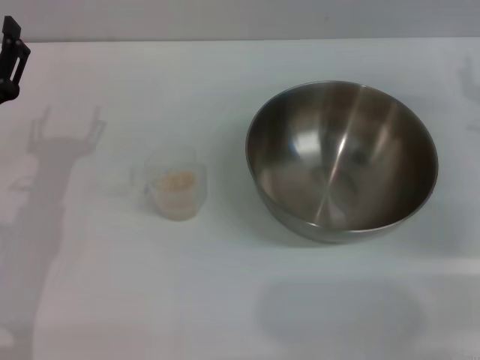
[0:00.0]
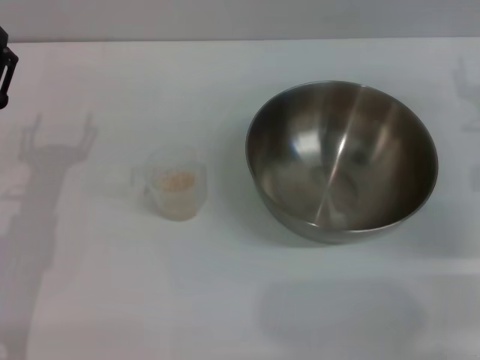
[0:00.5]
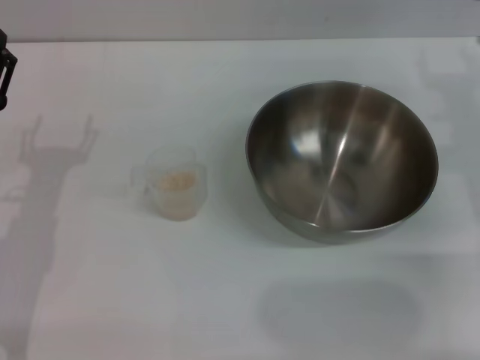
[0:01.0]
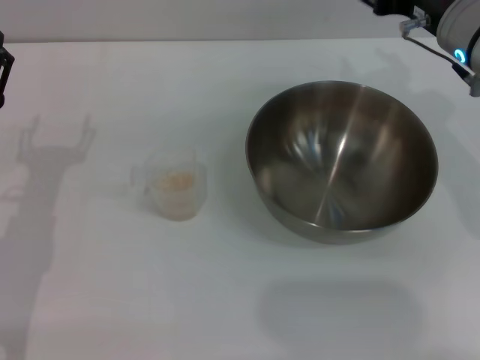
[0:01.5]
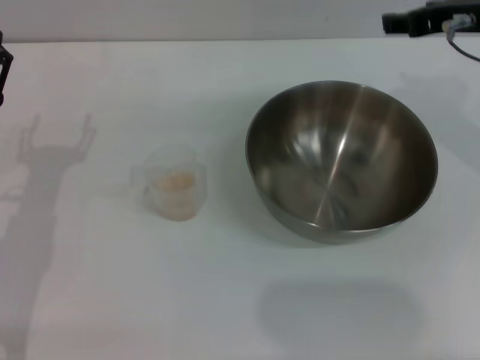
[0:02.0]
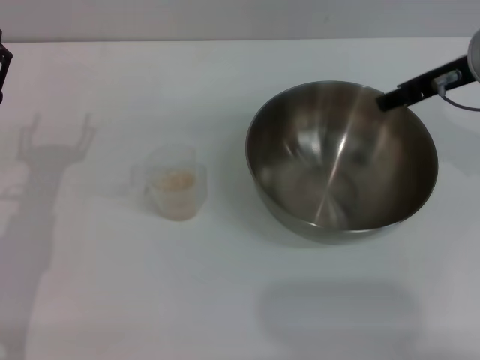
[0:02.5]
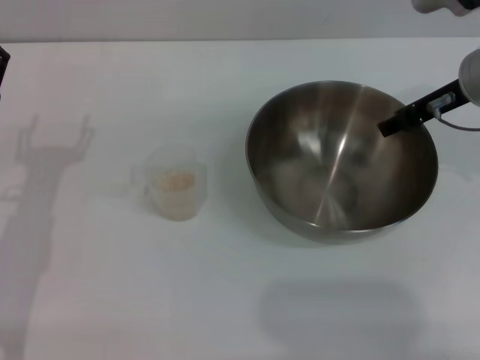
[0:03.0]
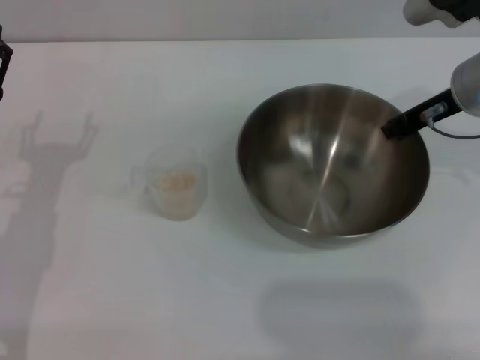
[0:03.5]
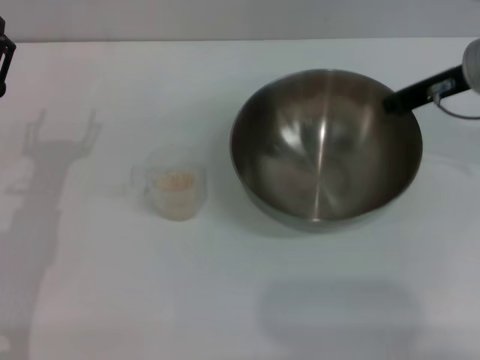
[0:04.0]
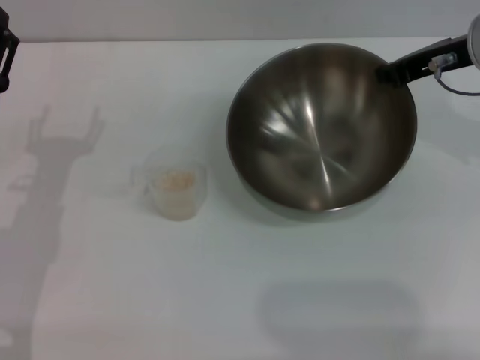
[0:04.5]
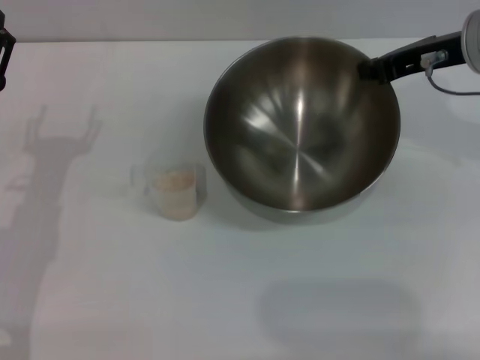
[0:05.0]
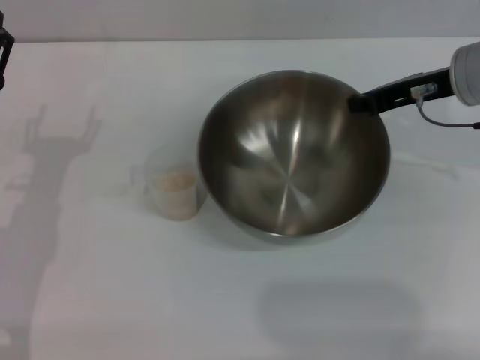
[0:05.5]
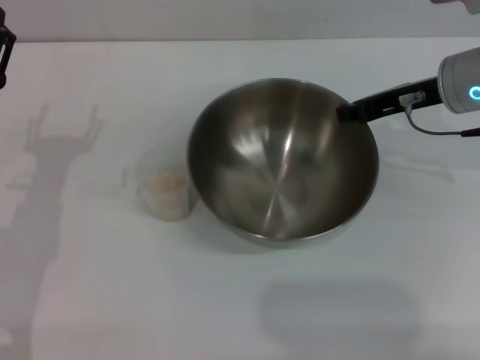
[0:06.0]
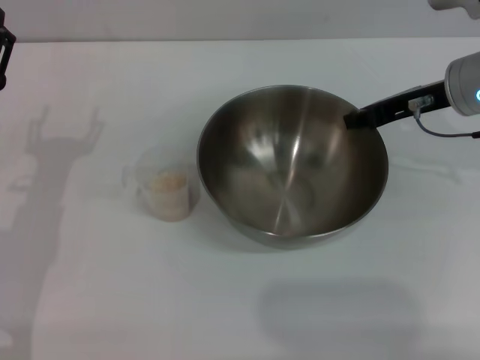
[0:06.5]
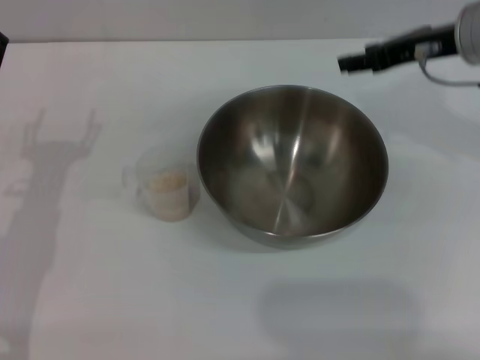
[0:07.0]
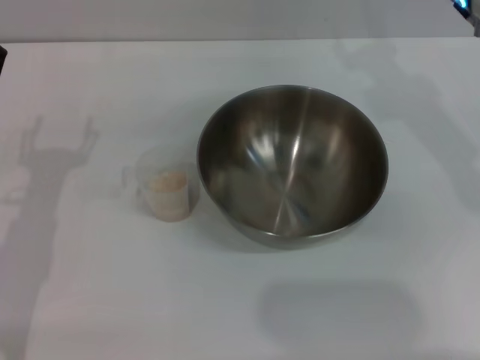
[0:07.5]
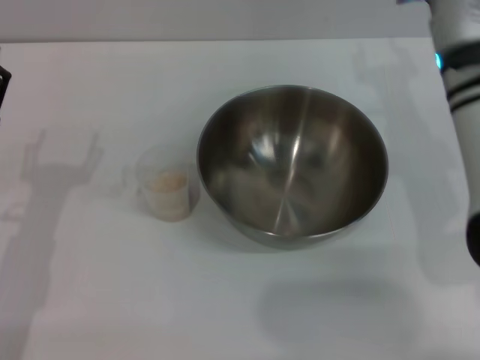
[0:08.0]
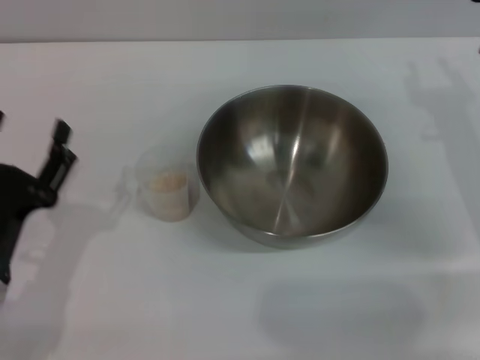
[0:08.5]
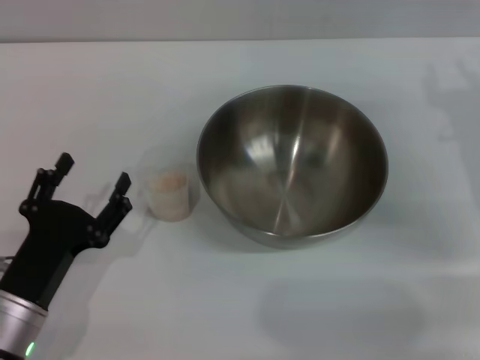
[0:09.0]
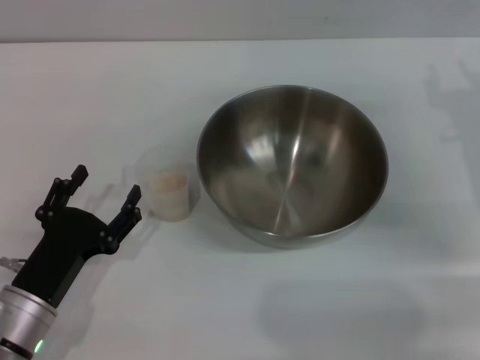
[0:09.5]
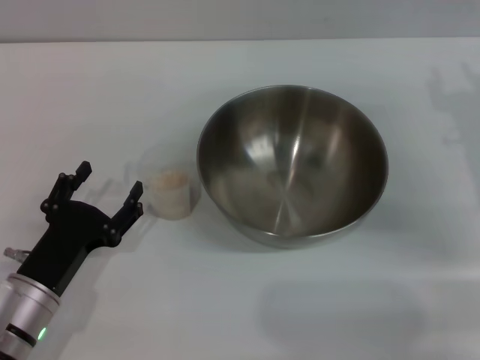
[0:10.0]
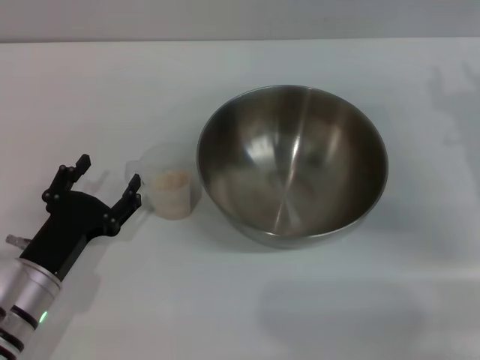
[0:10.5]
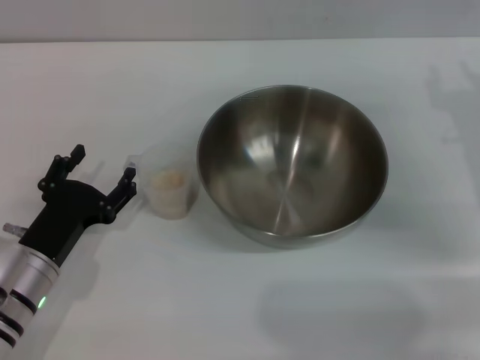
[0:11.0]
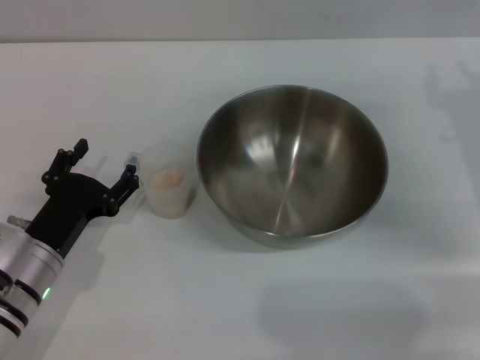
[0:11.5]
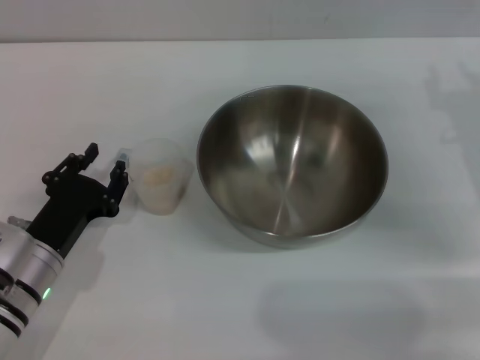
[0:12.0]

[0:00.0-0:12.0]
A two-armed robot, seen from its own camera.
Task of the whole recording: Place the bowl in the middle of the table with one hand and pour the rice from the grain cup into it with the other hand.
Step, 0:00.0 to 0:04.5: Pick up the bowl with the right gripper.
Step, 0:05.0 to 0:06.5: Place the bowl in the center of view with the right gripper.
0:00.0 to 0:02.0: The right gripper shifts some 15 cm upward and to the left.
0:02.0 to 0:04.0: The right gripper closes.
0:04.0 to 0:06.0: There are only small adjustments of the grippers.
0:06.0 to 0:08.0: The right gripper changes place by roughly 5 cm, and opens.
0:08.0 to 0:10.0: The right gripper moves to the right, roughly 10 cm, while the left gripper heads downward, covering some 5 cm.
0:10.0 to 0:12.0: There are only small adjustments of the grippers.

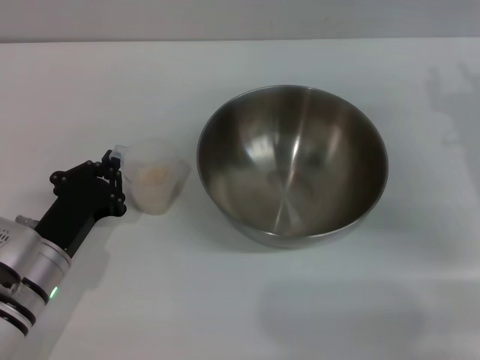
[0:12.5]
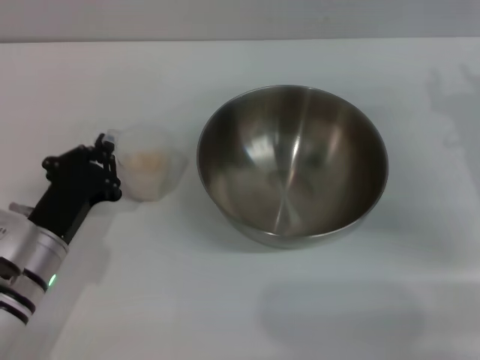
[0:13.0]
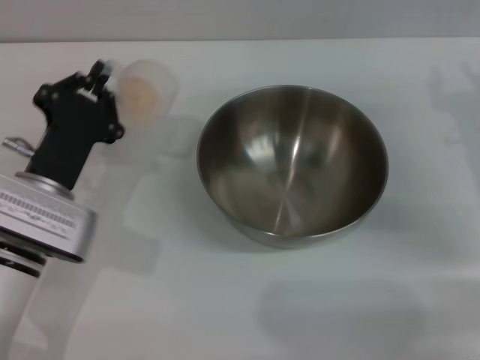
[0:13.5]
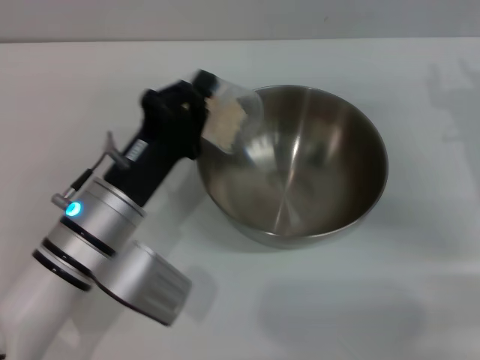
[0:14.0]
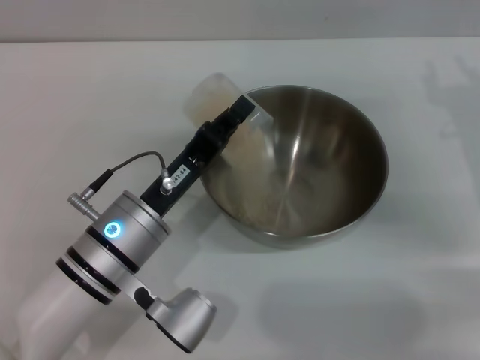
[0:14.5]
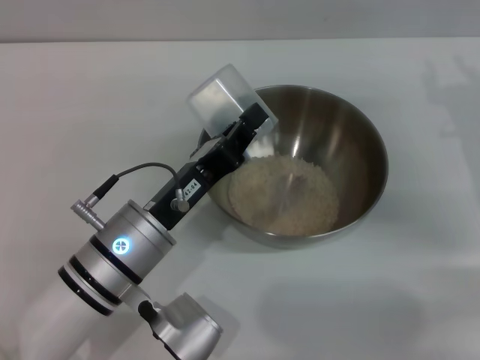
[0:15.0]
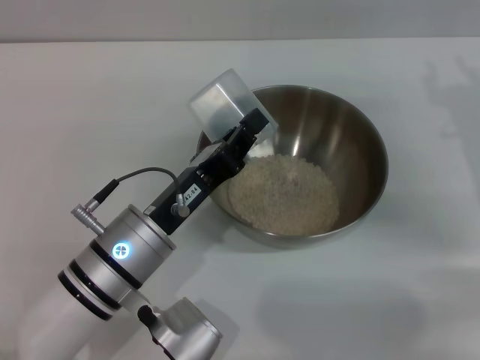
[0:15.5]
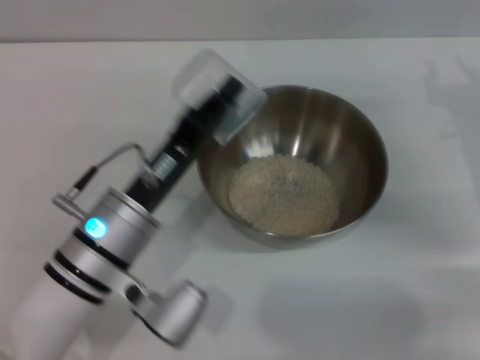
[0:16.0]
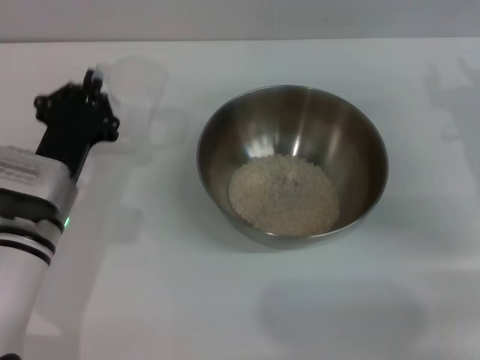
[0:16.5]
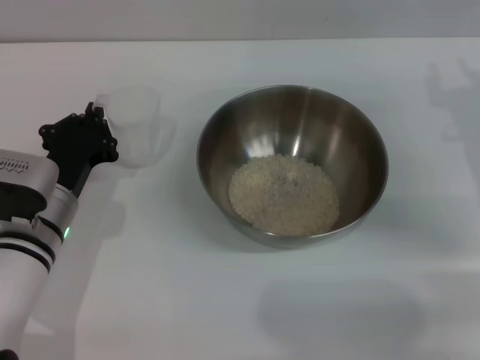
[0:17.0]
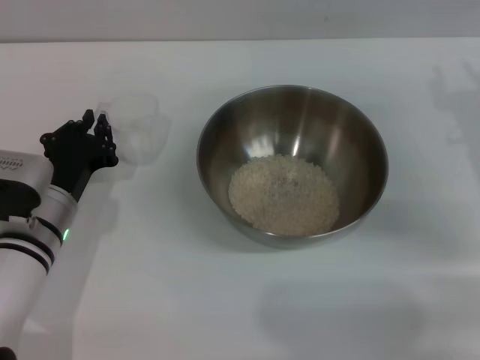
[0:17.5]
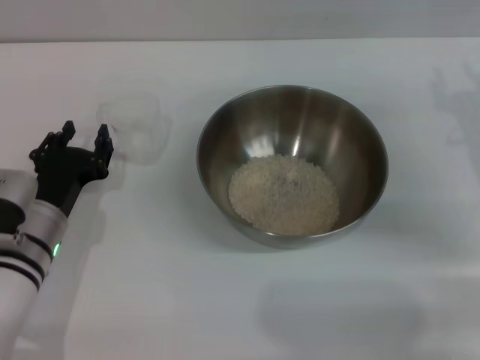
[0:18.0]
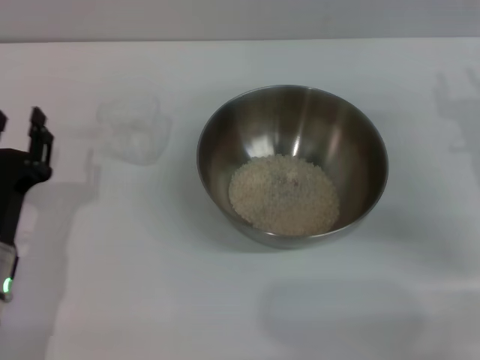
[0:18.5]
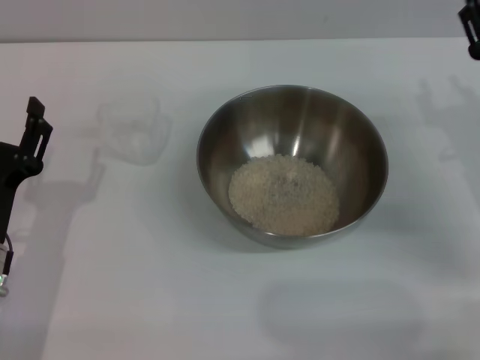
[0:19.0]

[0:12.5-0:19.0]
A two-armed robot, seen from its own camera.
Task of the whole recording: Place the bowl in the middle of the table with one hand and pour the rice from the grain cup into it with the other hand.
Step, 0:13.5 to 0:15.5: Pour the rice from the cup into the bowl with the left gripper.
Step, 0:16.0 to 0:18.0: Place the cup on the table with the left gripper.
0:12.5 to 0:14.5: The left gripper goes approximately 10 cm to the right and upward.
0:14.5 to 0:17.0: The left gripper moves to the left, some 10 cm.
0:17.0 to 0:19.0: The left gripper travels backward by roughly 5 cm, and opens up.
